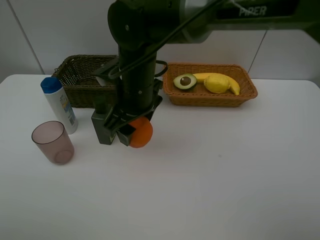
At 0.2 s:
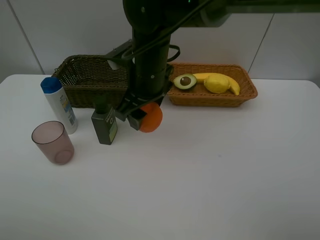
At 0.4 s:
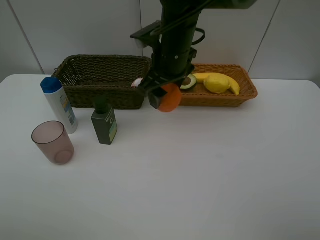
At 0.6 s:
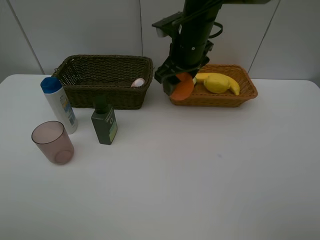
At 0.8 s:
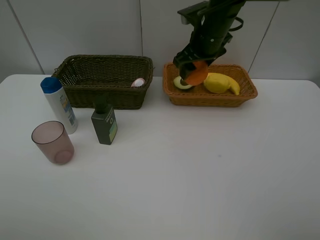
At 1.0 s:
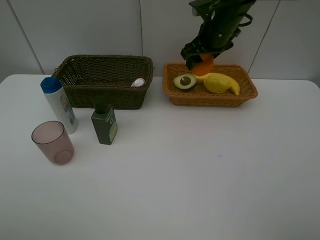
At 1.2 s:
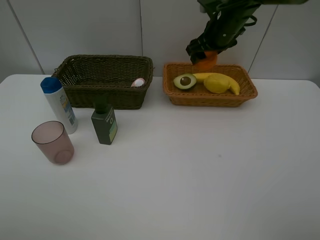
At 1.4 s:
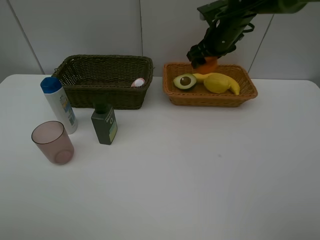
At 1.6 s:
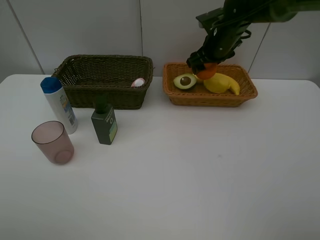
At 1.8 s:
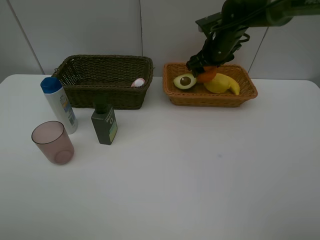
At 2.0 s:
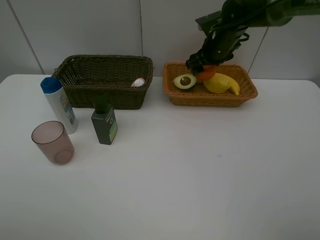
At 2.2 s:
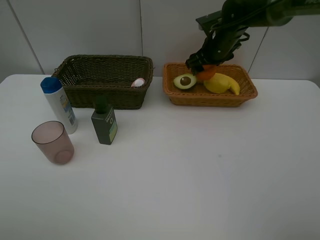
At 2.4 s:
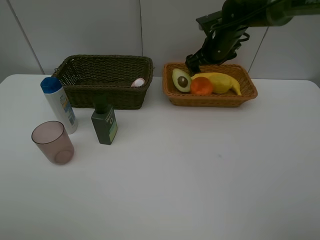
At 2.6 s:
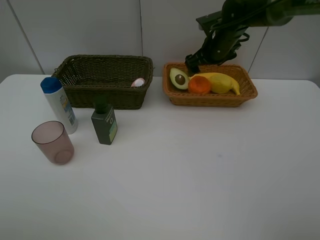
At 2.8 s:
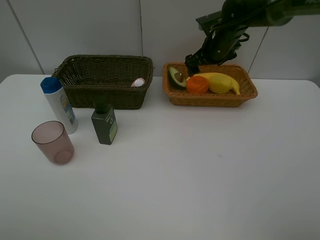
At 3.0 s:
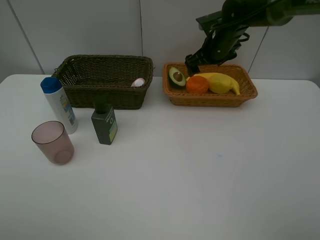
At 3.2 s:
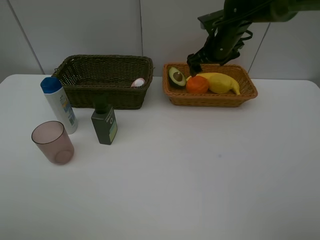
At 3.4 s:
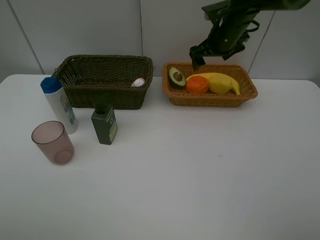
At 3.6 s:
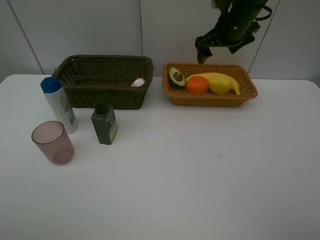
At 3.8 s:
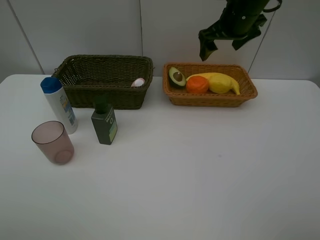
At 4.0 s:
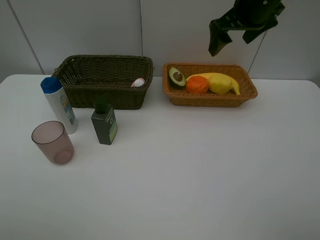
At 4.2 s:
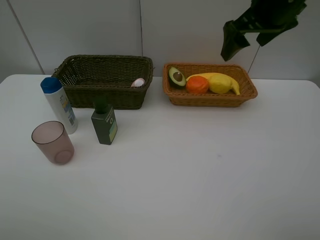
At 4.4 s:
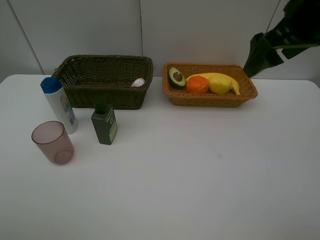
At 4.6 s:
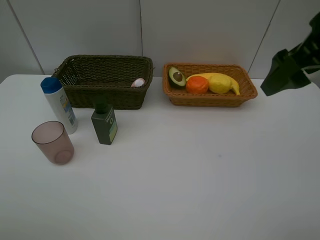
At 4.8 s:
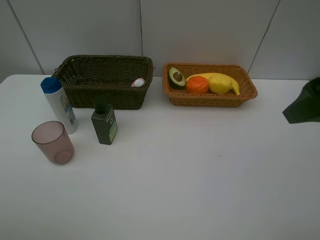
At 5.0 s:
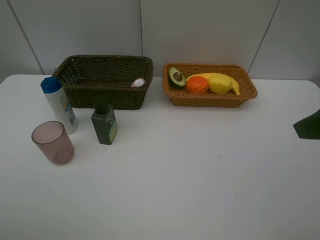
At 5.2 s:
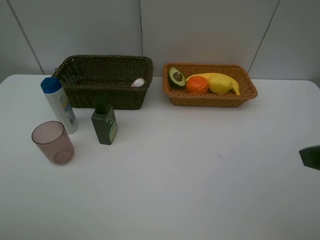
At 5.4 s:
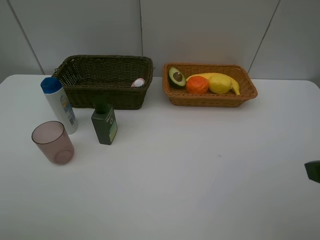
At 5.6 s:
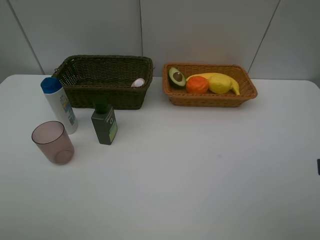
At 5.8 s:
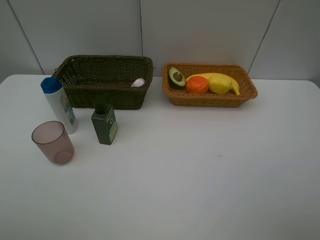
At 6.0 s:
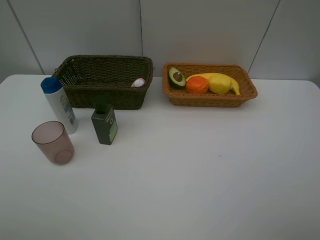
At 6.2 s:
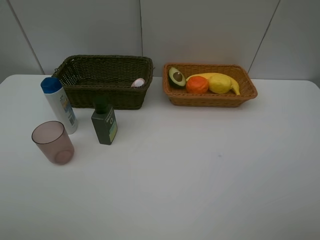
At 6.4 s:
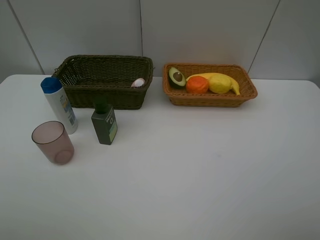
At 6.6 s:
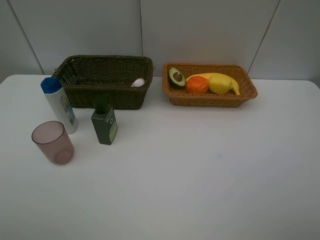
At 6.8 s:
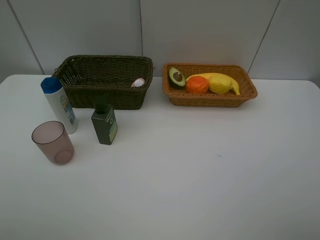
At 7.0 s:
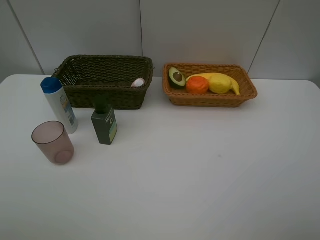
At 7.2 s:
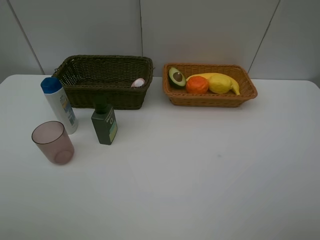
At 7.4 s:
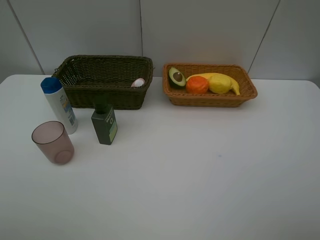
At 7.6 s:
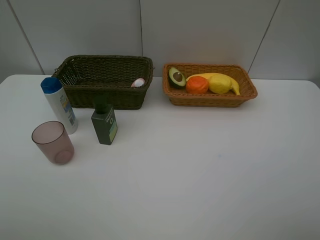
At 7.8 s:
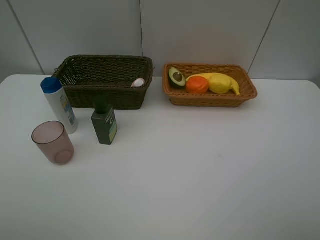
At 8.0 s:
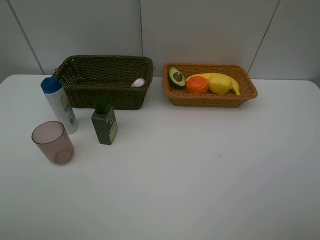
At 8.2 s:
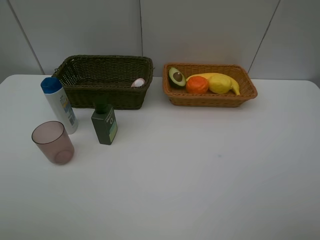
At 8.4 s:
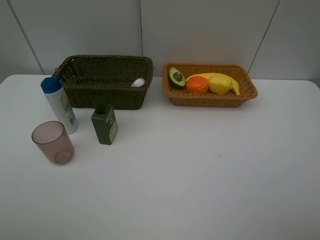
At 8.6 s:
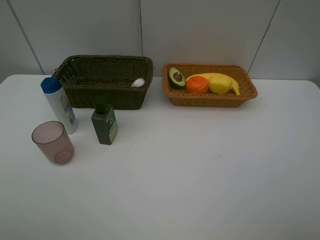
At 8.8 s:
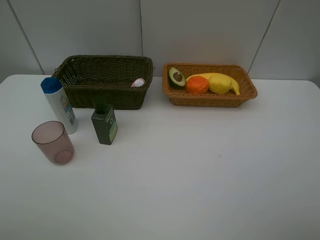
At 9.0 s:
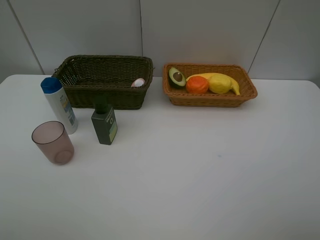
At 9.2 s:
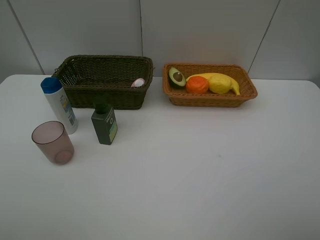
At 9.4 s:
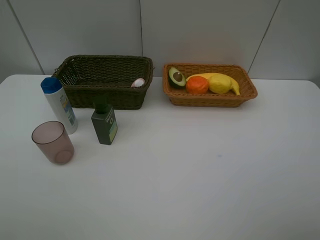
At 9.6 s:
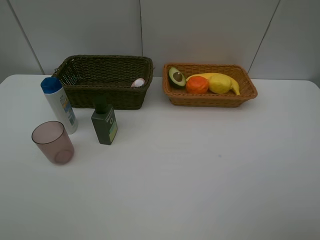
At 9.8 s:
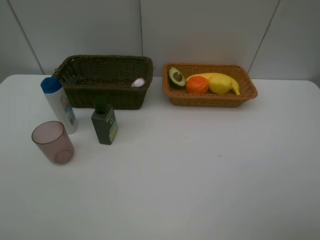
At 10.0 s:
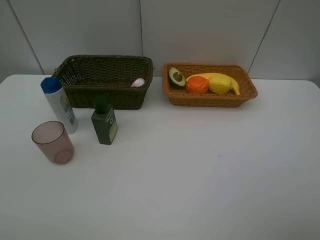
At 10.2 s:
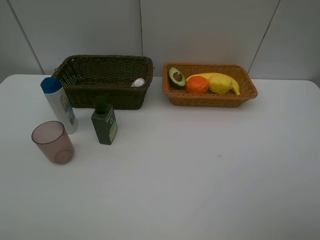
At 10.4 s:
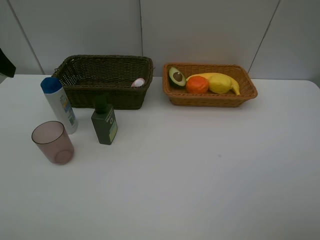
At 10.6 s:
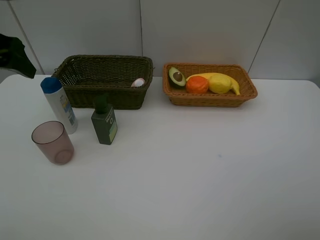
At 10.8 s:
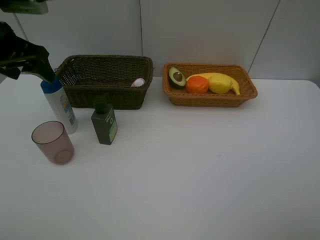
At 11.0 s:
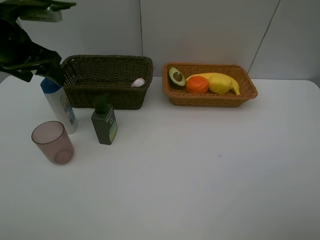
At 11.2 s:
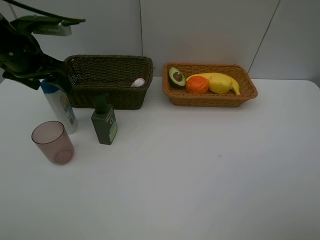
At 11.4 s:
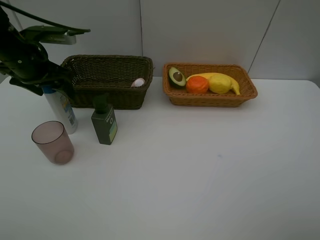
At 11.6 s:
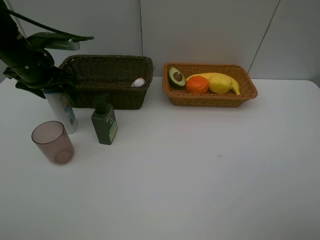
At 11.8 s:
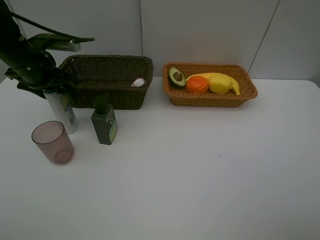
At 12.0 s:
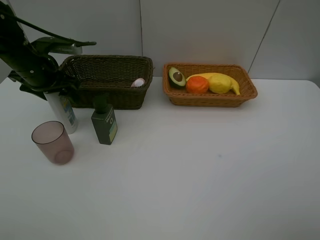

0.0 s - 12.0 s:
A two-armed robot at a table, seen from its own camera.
Task of the whole recording: Place multiple objects separately in different baskets.
Step, 0.0 s - 2.6 s: Place the orange in the light basket with right gripper.
0.0 s - 1.6 s: The right gripper shifts approximately 25 cm to the right and forward.
1.6 s - 3.0 s: The right gripper opens.
3.0 s - 4.4 s: The right gripper travels backward and upward by some 25 cm.
4.4 s - 6.0 s: The right gripper travels backward by about 25 cm.
10.4 s - 12.0 s: The left gripper heads downward and forward, covering about 15 cm.

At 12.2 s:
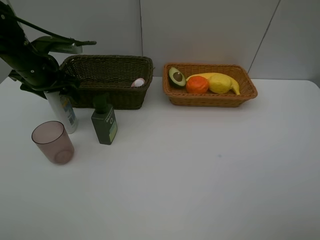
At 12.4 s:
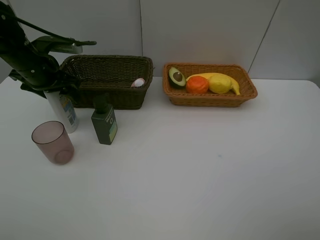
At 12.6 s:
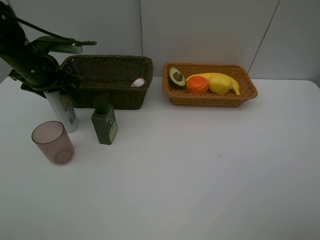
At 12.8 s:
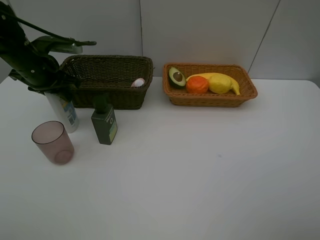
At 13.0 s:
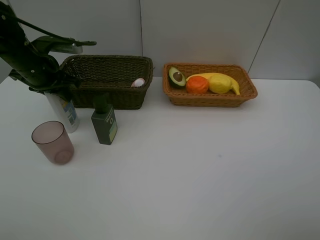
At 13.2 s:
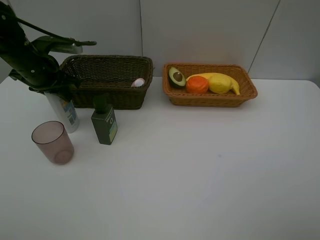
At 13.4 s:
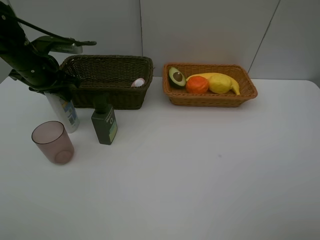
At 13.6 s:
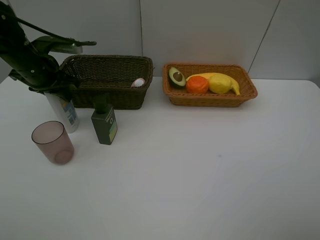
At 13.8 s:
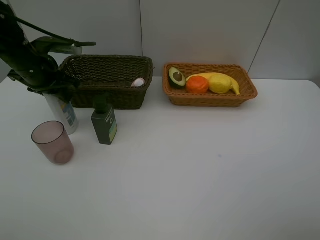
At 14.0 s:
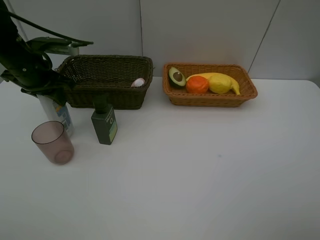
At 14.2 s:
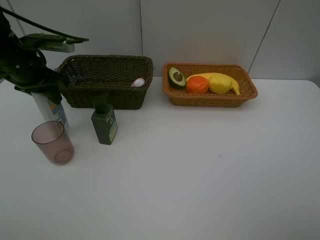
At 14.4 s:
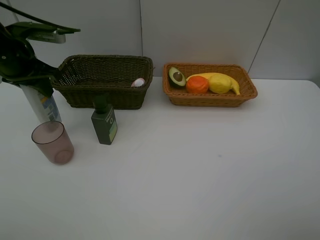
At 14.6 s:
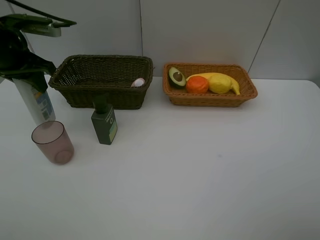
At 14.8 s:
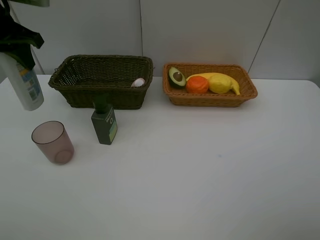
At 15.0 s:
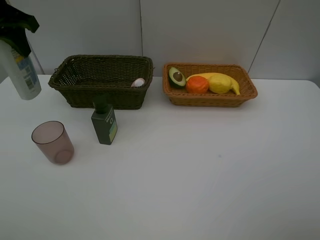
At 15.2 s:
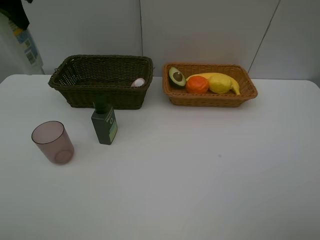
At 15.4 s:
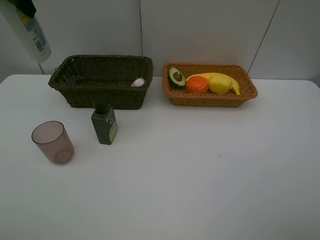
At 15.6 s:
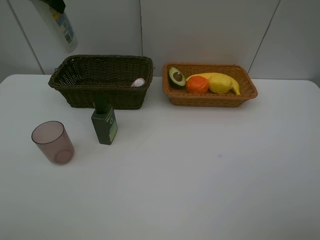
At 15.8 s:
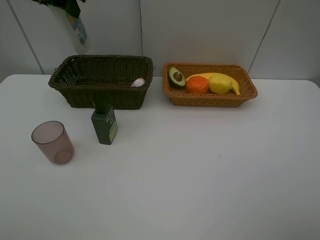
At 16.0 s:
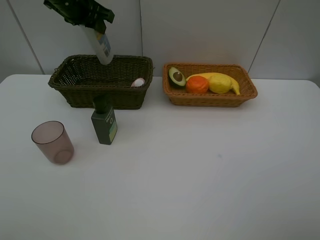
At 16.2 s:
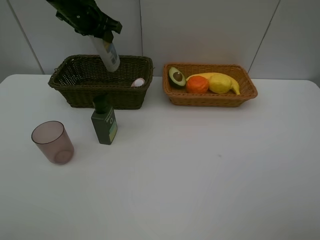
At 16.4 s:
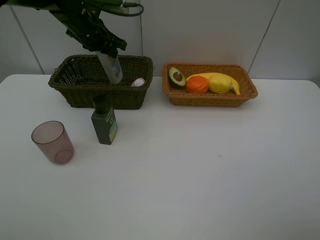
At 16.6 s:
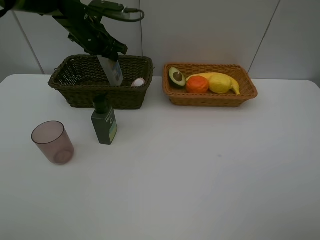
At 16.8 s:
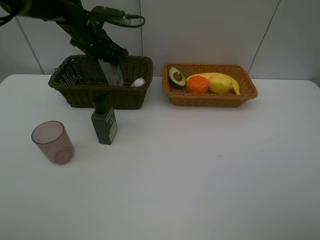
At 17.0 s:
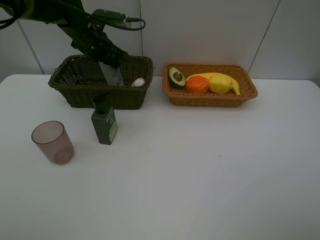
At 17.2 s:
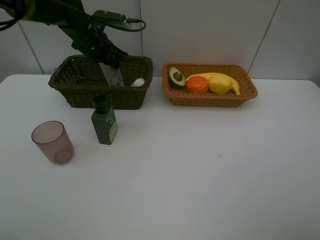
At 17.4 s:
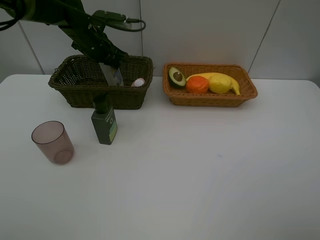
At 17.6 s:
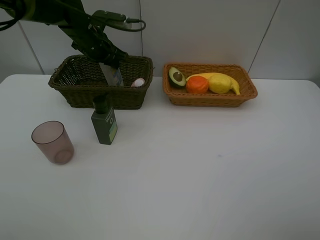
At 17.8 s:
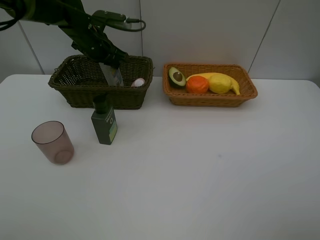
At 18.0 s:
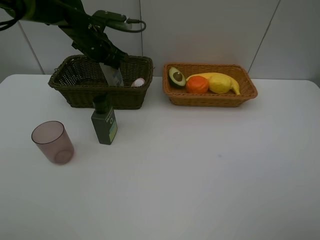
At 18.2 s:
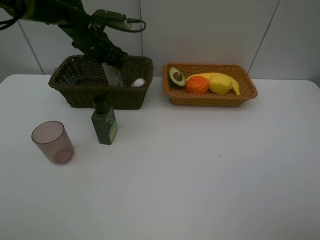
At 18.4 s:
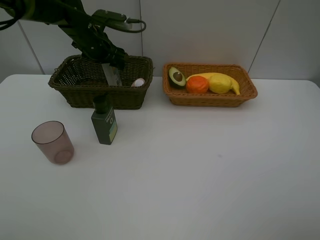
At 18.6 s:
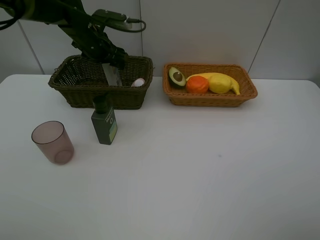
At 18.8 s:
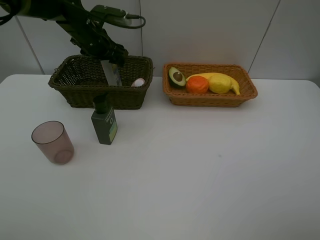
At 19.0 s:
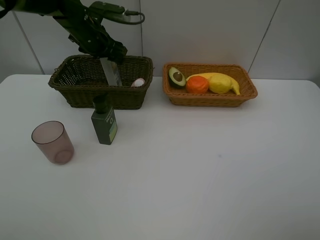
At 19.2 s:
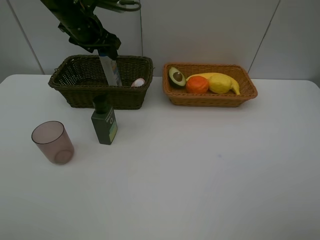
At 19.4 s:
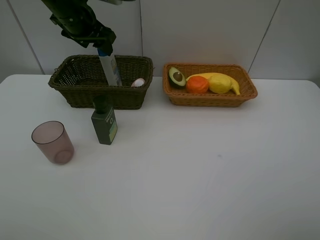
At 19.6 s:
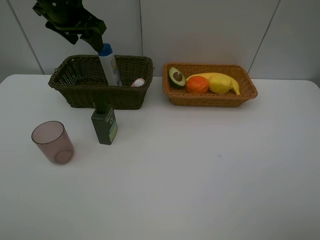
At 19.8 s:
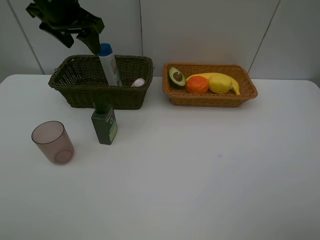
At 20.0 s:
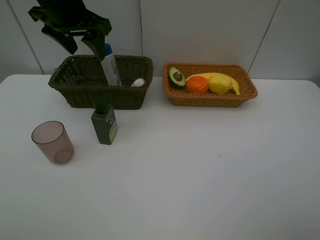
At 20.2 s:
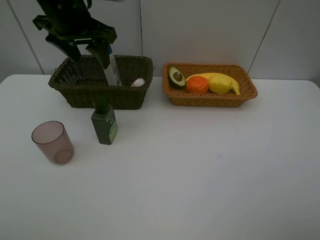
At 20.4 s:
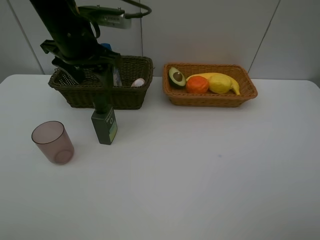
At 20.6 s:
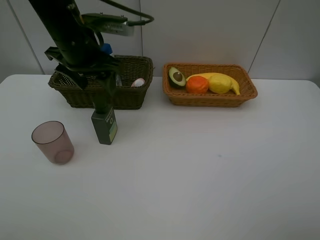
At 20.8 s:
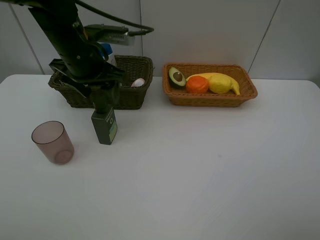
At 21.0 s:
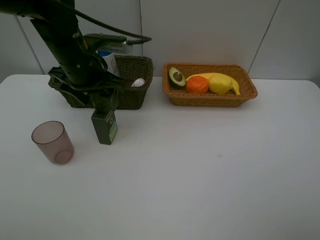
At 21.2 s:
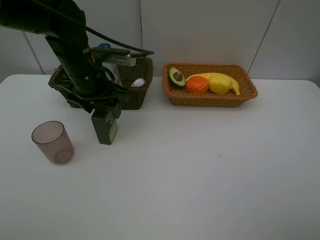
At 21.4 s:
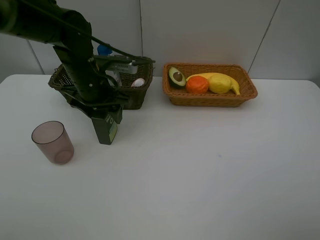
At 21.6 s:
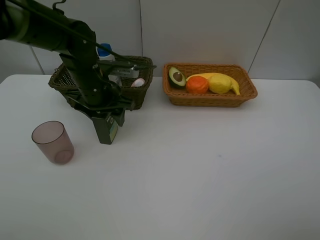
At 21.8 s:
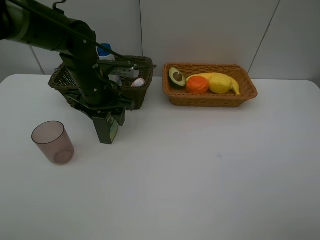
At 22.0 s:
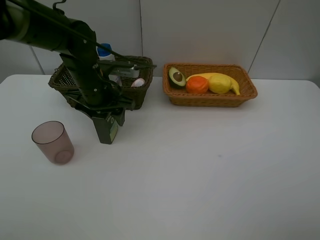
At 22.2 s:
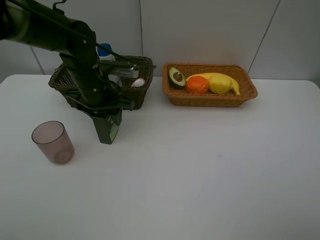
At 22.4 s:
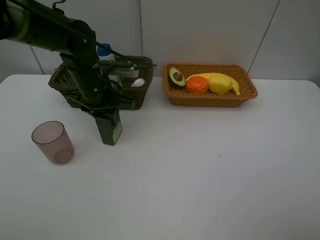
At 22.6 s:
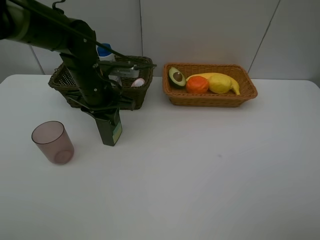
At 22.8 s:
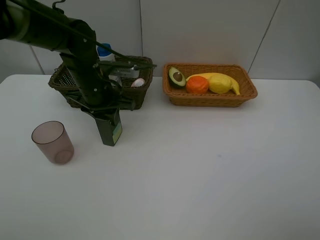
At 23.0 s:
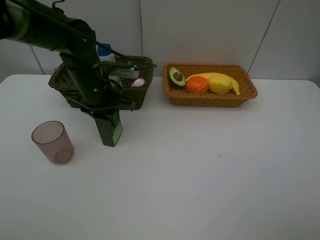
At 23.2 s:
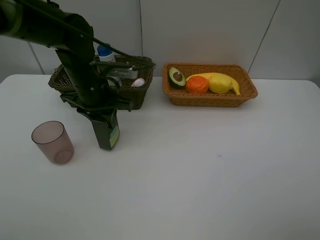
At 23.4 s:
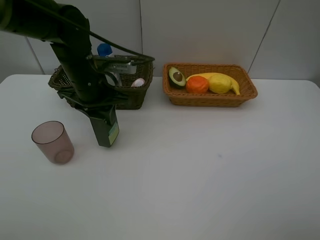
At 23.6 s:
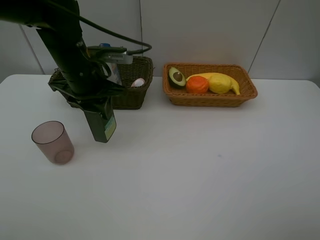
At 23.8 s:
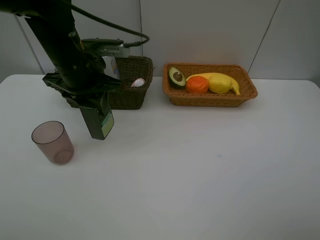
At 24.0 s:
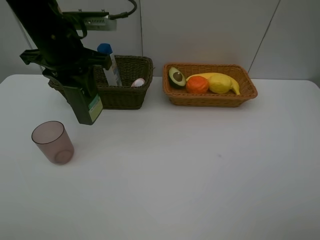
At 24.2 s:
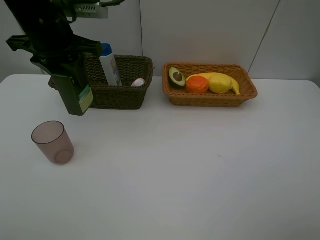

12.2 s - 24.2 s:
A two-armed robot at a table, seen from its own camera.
Task of the whole recording: Place multiple objects separately in different baskets.
Step, 12.2 s - 14.2 s: Pick up the shampoo with left gripper.
Step, 14.4 s - 19.2 s: Place the shampoo in the dark basket with left gripper.
Step, 19.4 s - 23.4 s: Pick up the hard facial cleanser with left gripper.
13.8 s - 15.2 s: The left gripper is displaced upward by about 20 cm.
15.2 s - 16.6 s: The left gripper shifts some 20 cm downward, to the right and forward.
16.6 s - 18.2 s: The left gripper opens its fingers.
18.2 s - 19.8 s: The left gripper shifts approximately 15 cm upward and backward.
19.8 s - 21.2 s: The left gripper travels downward and backward by some 15 cm.
21.2 s - 22.6 s: The left gripper closes its fingers.
22.6 s - 24.2 s: The left gripper heads upward, covering approximately 15 cm.
